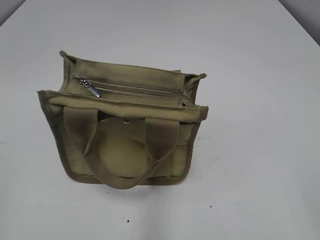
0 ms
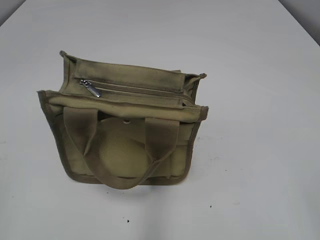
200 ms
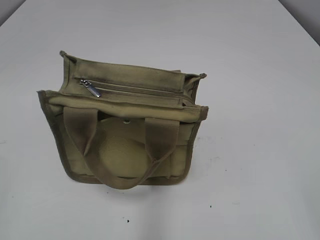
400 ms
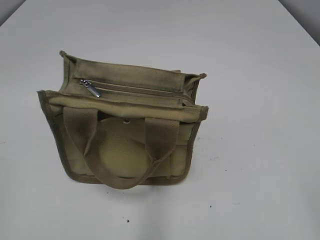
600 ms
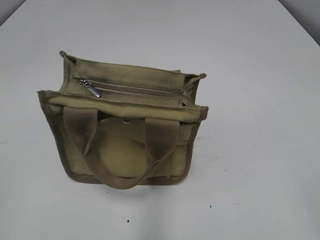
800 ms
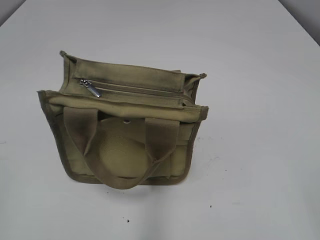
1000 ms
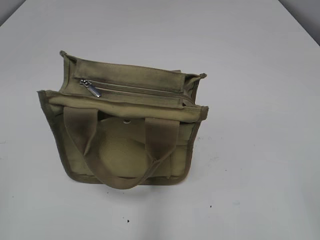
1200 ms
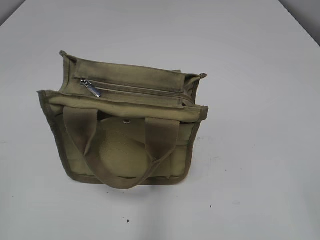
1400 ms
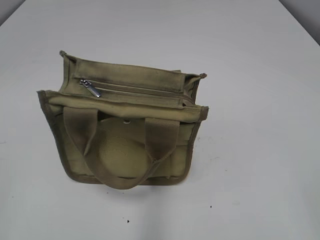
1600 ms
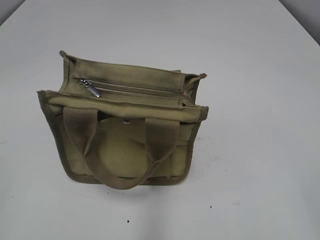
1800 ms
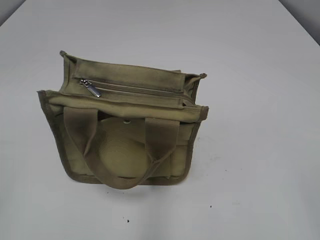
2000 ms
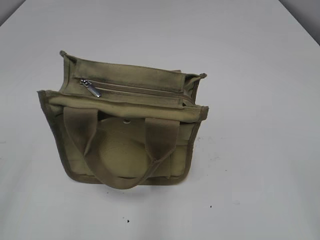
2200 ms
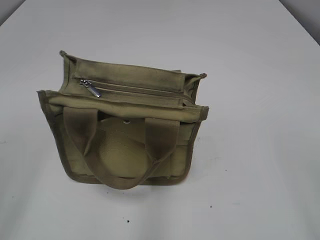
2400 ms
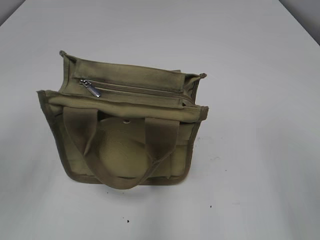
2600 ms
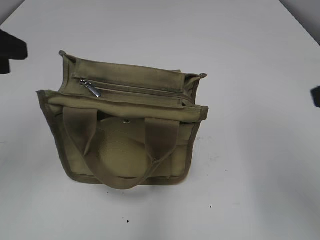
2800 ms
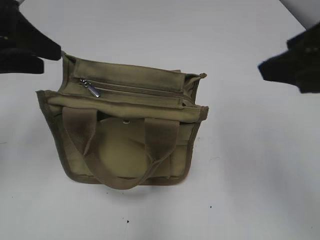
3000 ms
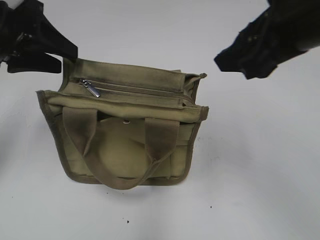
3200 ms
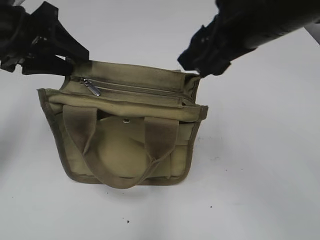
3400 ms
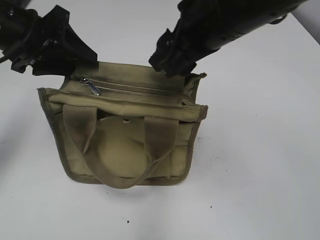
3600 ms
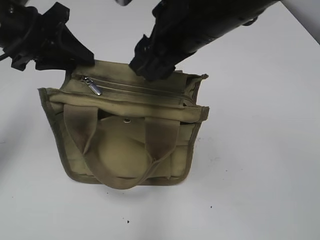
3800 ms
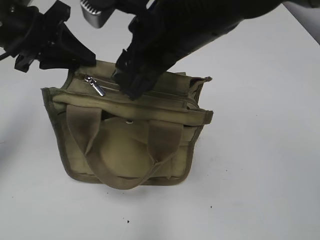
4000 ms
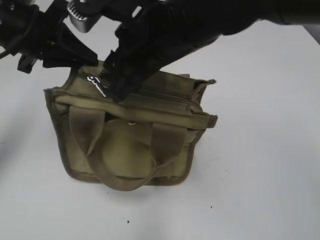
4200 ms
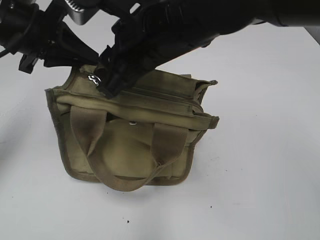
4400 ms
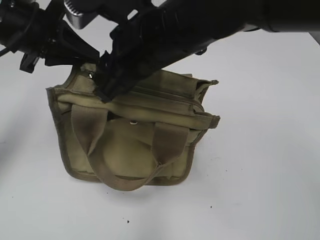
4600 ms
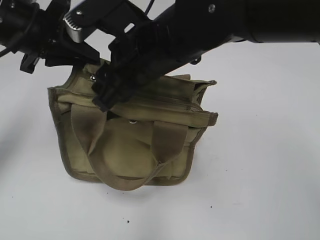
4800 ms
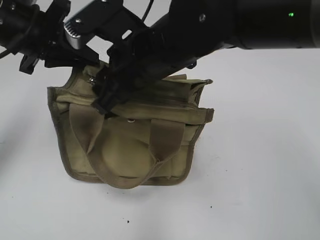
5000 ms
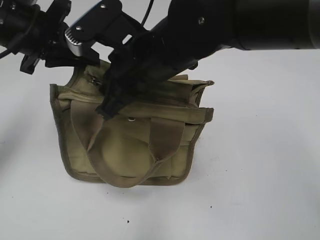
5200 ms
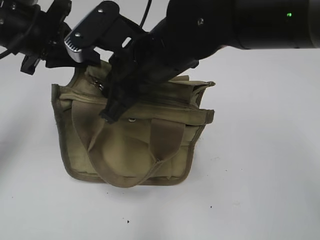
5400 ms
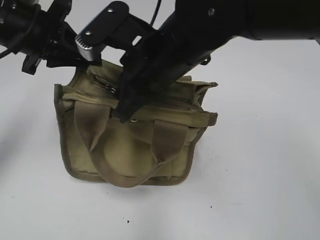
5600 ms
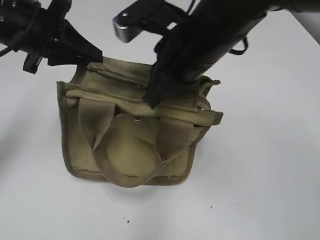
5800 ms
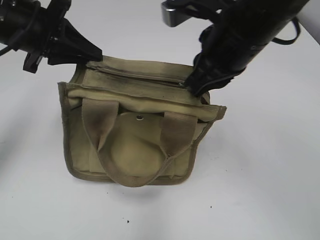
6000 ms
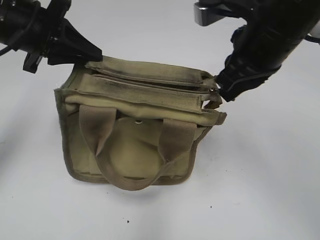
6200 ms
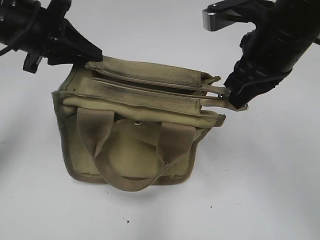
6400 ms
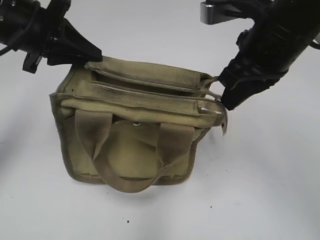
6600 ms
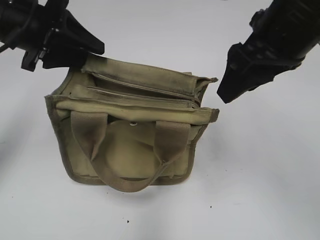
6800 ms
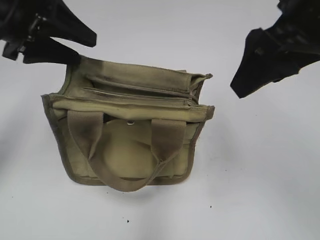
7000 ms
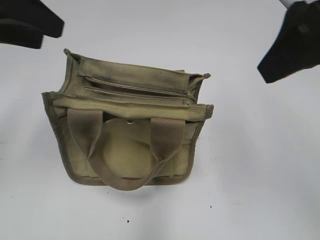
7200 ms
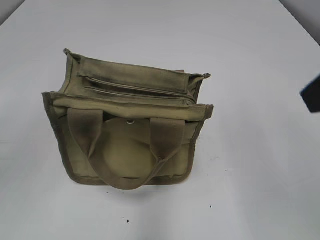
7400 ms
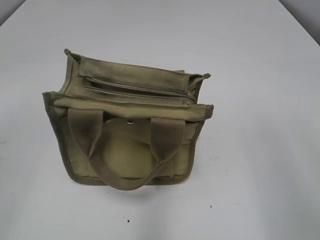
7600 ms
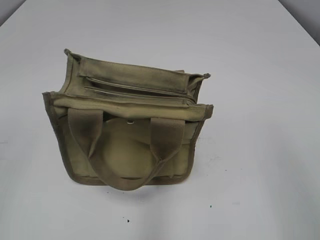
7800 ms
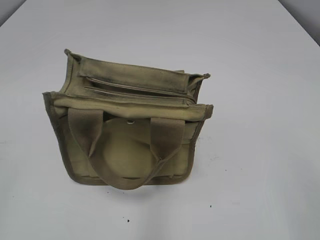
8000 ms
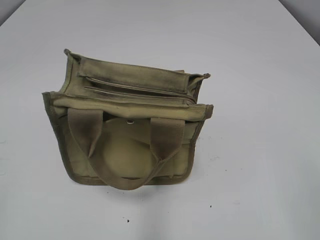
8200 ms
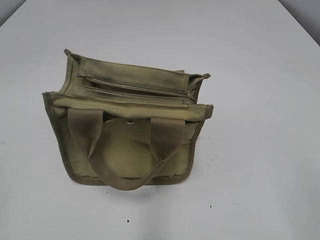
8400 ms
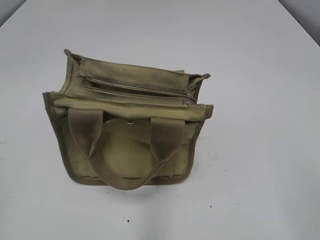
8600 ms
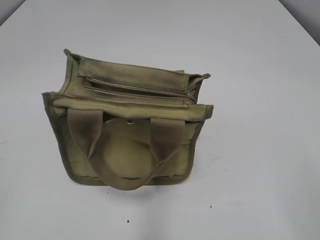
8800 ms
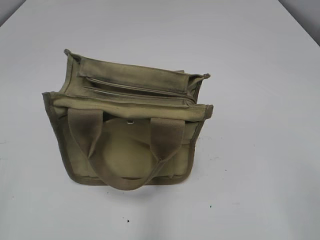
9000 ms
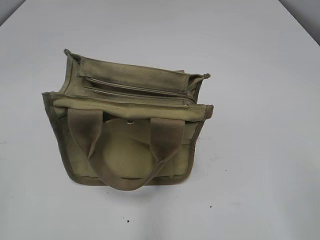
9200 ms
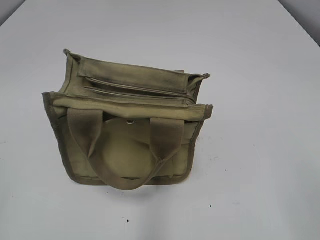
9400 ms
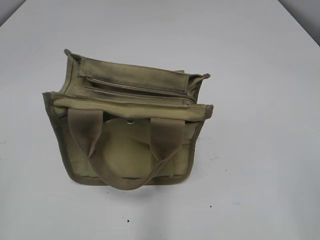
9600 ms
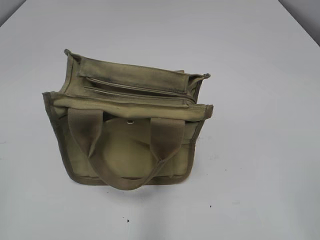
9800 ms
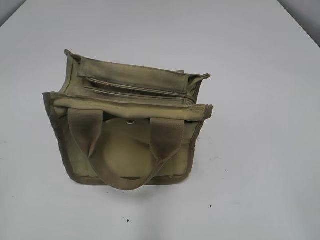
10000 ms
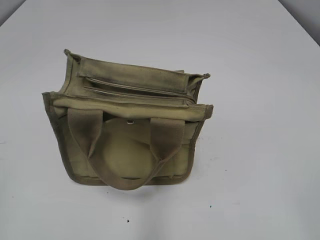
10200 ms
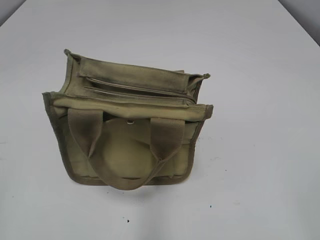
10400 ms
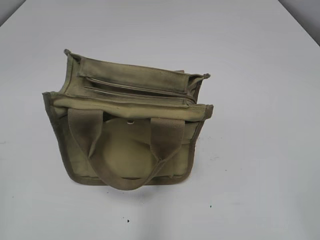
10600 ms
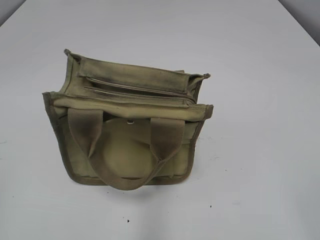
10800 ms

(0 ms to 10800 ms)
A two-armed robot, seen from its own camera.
Step, 0 ms - 6600 ms: Pull open the zipper with your right hand.
Step, 6800 ms - 7000 ms: Hold the bag with your left hand.
1600 ms - 3000 ms: The left gripper goes about 25 cm forward, while the right gripper heads forward and to the left, covering about 20 cm.
3000 ms - 4600 ms: The right gripper is displaced to the left and forward by about 20 cm. Meanwhile the left gripper travels forward by approximately 5 cm, and closes.
4600 ms - 6200 ms: The right gripper moves to the right, approximately 15 cm, and closes up.
6200 ms - 7800 ms: The right gripper moves backward and to the right, roughly 25 cm, and opens up. Meanwhile the left gripper heads backward and to the left, covering about 30 cm, and opens its fingers.

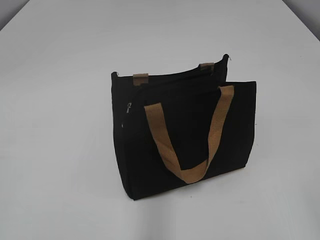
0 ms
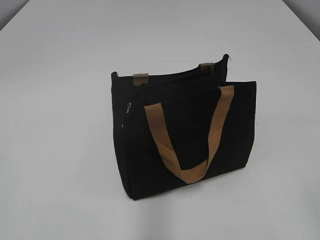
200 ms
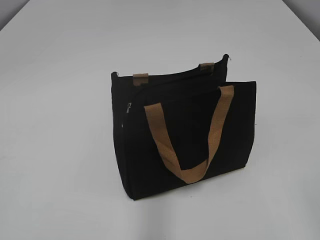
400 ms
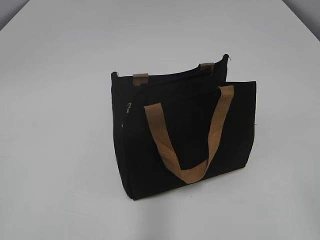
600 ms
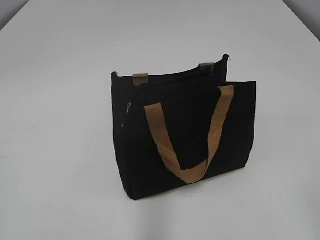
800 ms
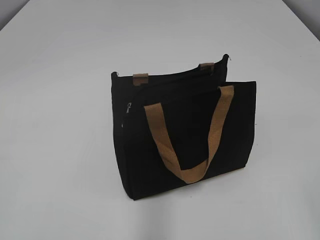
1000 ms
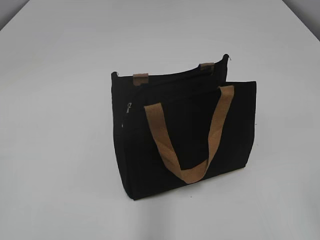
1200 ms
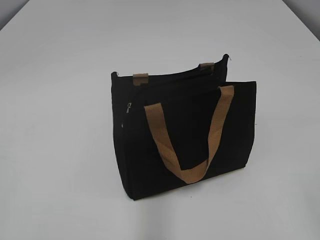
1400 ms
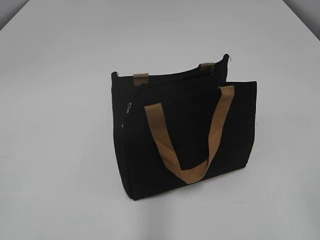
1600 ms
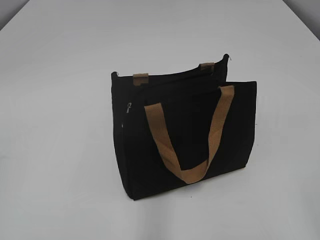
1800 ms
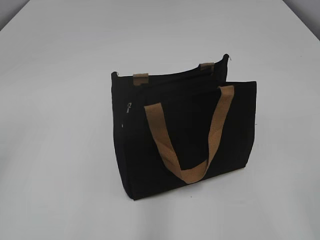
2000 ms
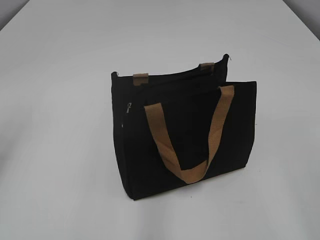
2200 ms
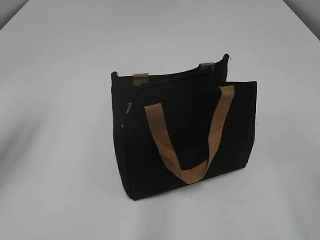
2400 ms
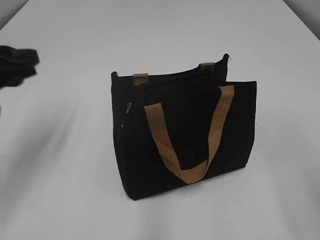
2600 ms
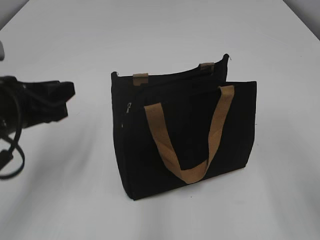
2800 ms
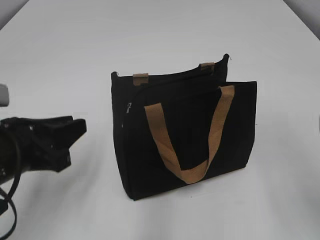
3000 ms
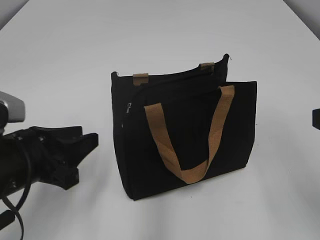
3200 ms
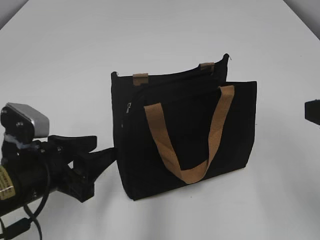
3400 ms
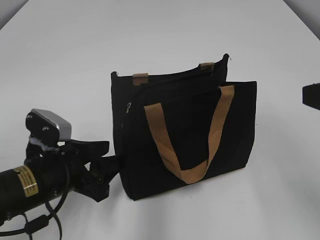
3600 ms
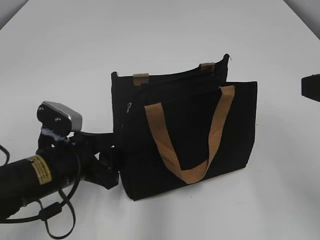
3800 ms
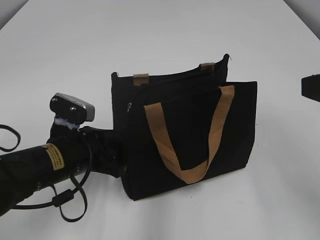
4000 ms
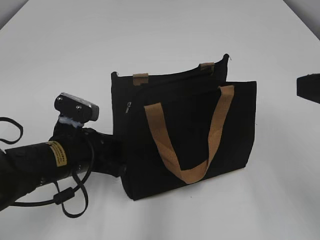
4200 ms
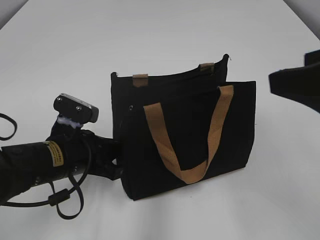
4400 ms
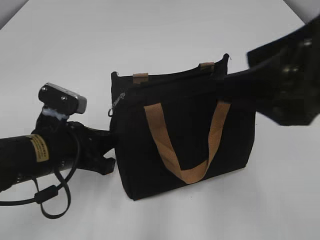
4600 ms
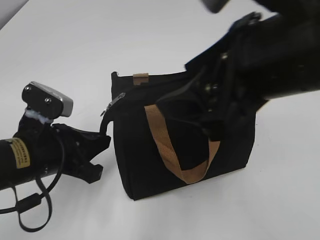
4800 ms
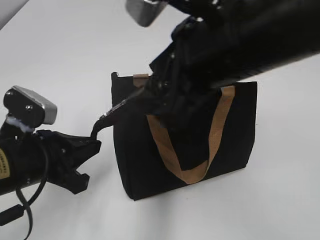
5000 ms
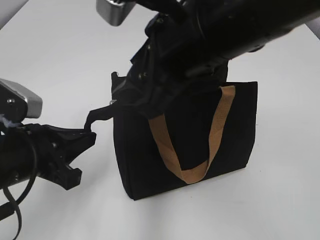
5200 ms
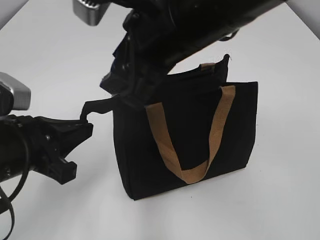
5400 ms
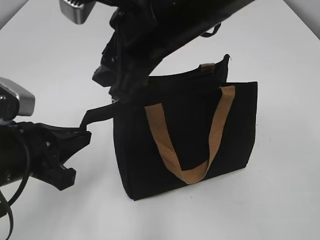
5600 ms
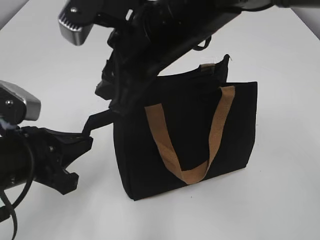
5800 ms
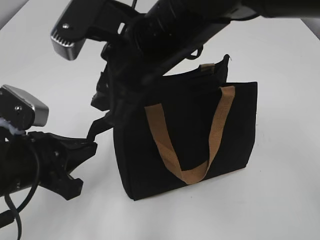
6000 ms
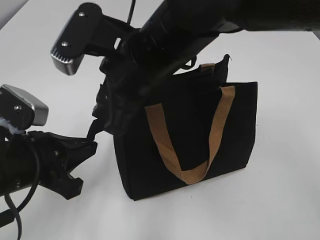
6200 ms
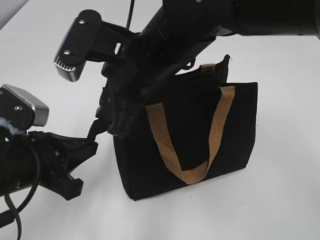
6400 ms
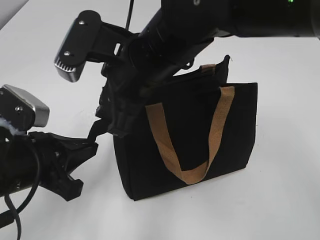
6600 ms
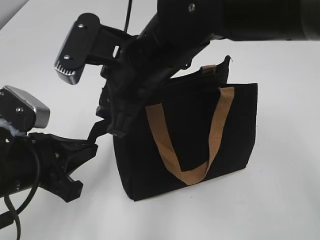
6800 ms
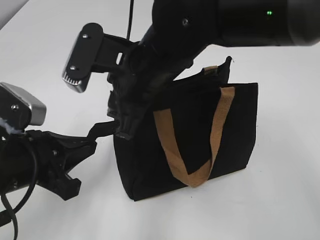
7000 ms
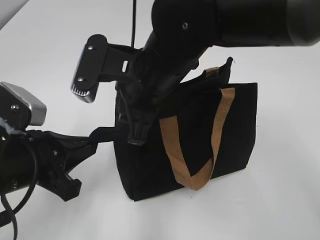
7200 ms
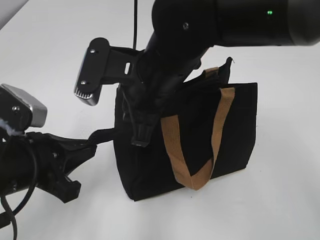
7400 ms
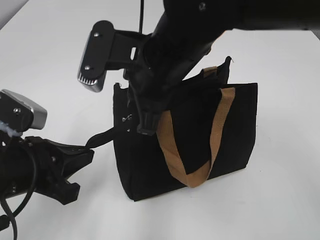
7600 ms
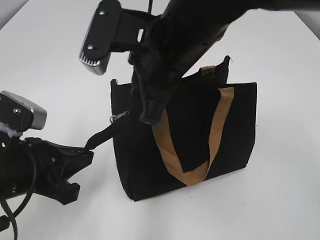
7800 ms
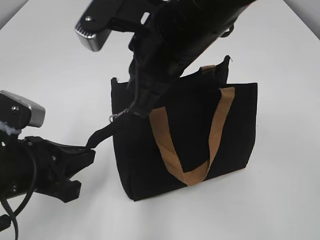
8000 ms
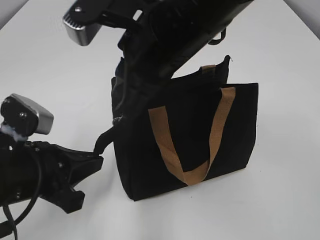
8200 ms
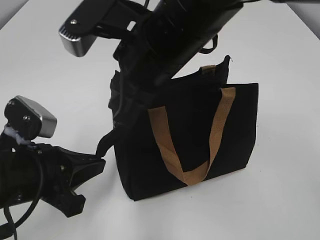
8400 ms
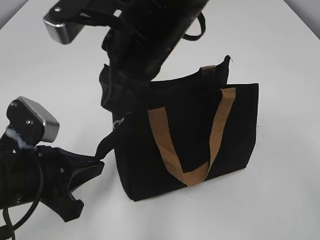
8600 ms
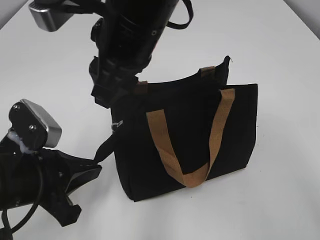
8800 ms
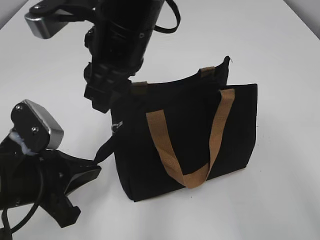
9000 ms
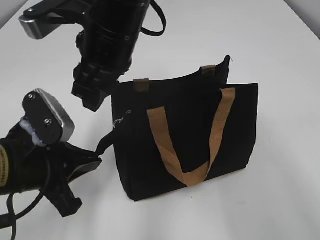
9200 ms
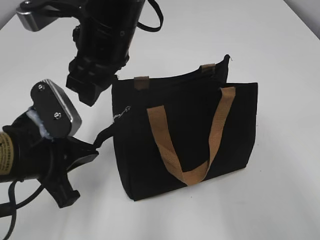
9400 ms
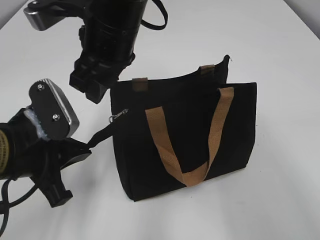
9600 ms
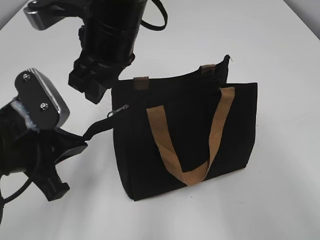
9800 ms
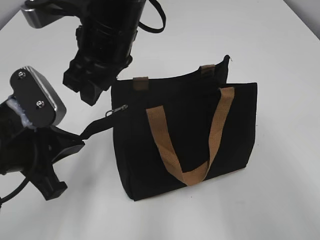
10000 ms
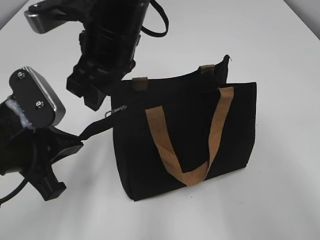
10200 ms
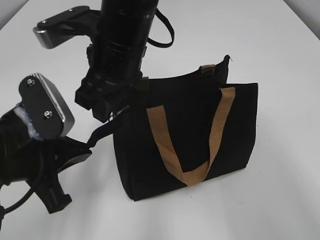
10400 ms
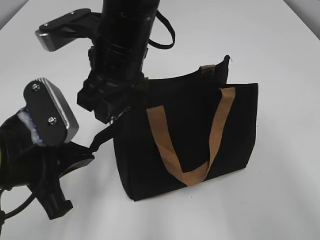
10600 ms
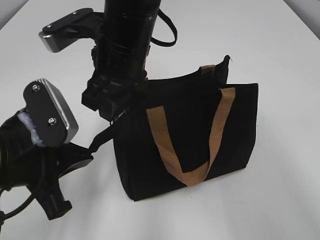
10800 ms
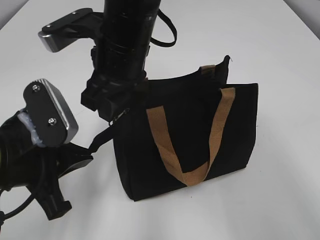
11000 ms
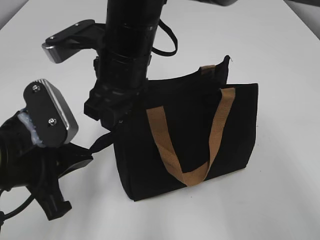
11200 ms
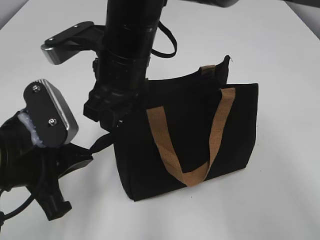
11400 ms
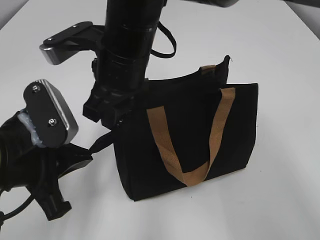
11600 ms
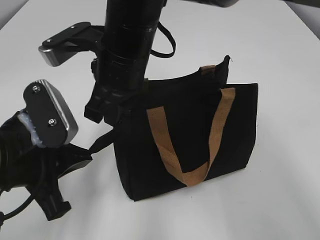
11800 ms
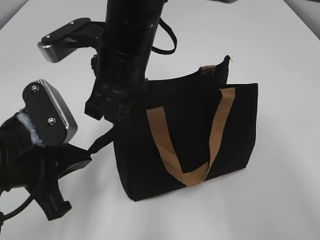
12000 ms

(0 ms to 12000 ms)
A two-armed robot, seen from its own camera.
1600 ms - 3000 ms: The left gripper heads forward, to the right and downward, covering roughly 25 cm.
3000 ms - 4400 ms: The right gripper ends up some 5 cm from where it was, while the left gripper moves downward, to the right and forward, about 10 cm, and closes its fingers.
4400 ms - 6000 ms: The right gripper shifts about 25 cm to the left and forward, and closes up, while the left gripper shifts roughly 10 cm upward and backward.
6000 ms - 7600 ms: The right gripper closes its fingers.
7600 ms - 9000 ms: The right gripper changes place by about 5 cm, and opens up.
10400 ms - 12000 ms: The right gripper closes.
